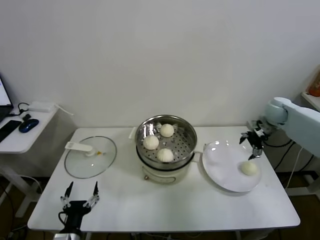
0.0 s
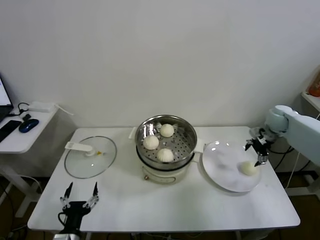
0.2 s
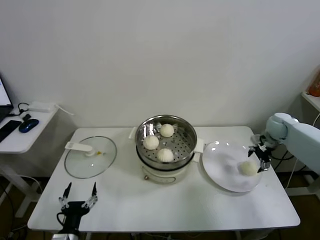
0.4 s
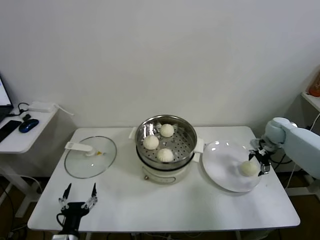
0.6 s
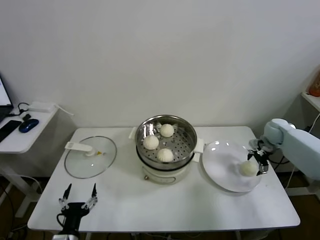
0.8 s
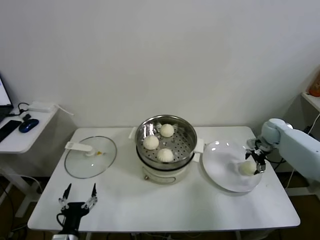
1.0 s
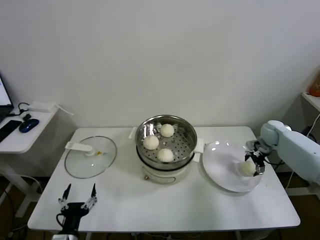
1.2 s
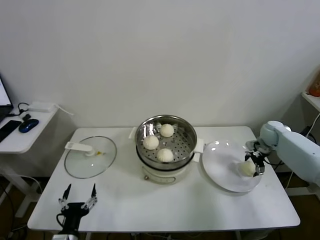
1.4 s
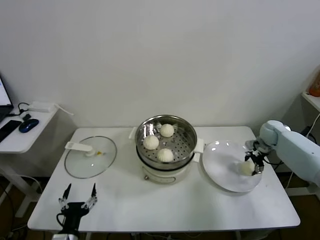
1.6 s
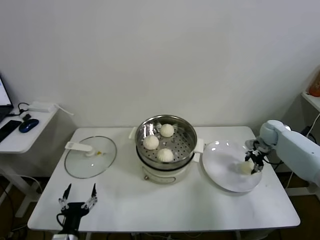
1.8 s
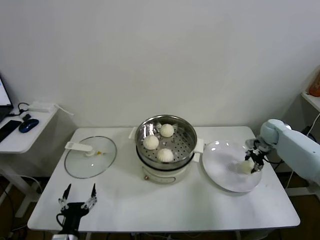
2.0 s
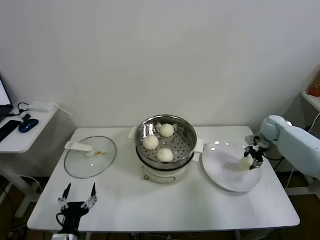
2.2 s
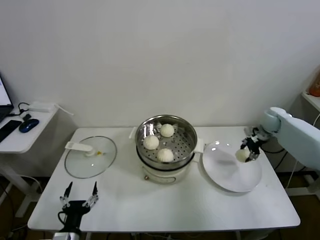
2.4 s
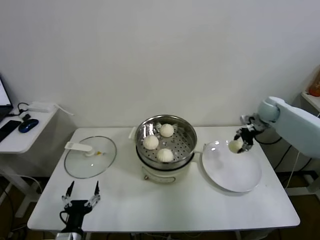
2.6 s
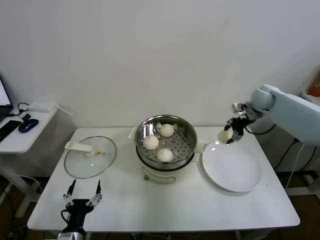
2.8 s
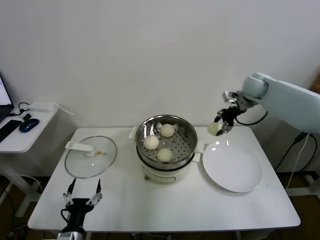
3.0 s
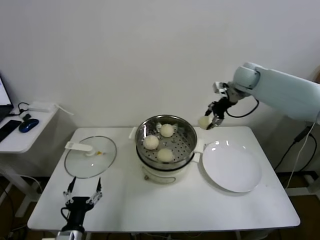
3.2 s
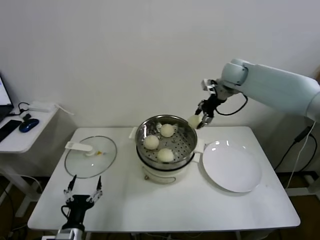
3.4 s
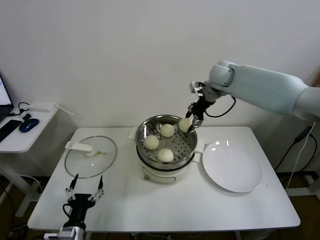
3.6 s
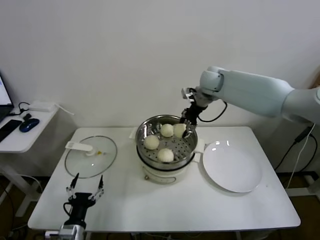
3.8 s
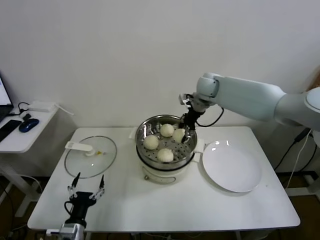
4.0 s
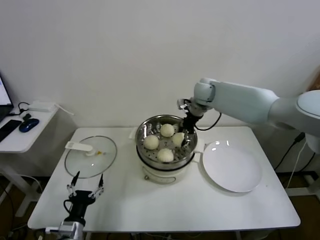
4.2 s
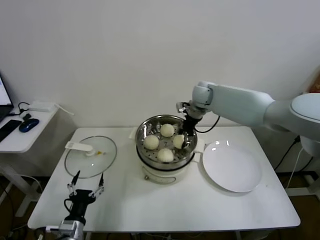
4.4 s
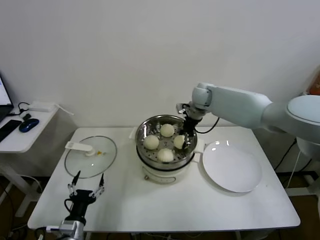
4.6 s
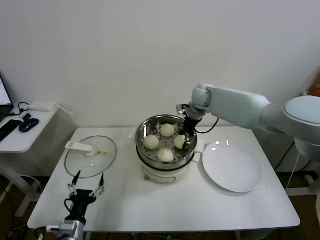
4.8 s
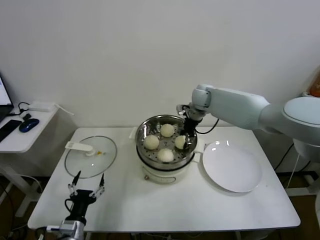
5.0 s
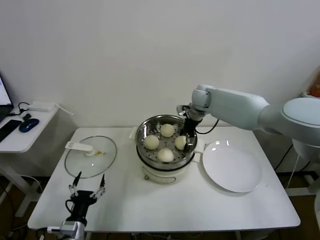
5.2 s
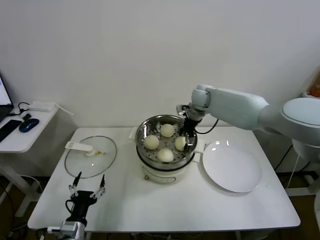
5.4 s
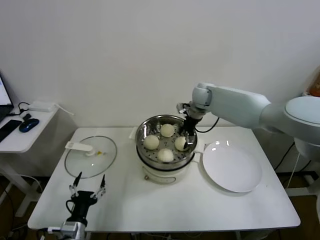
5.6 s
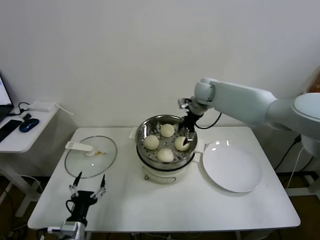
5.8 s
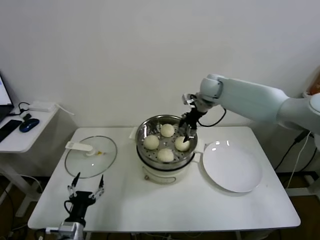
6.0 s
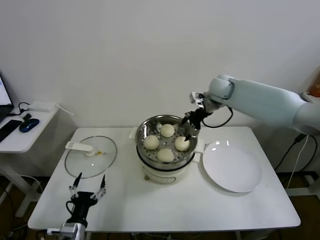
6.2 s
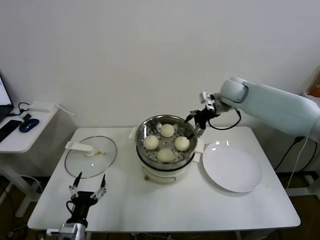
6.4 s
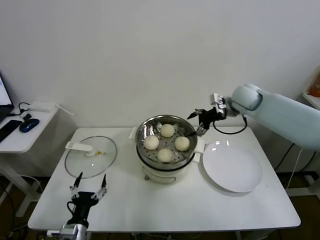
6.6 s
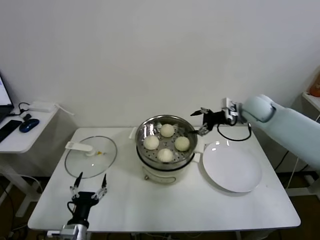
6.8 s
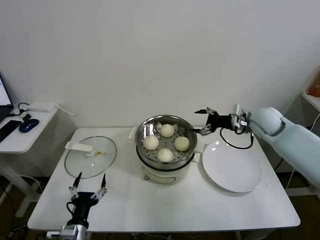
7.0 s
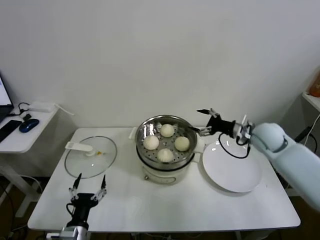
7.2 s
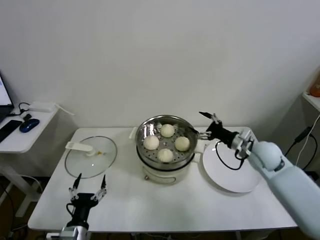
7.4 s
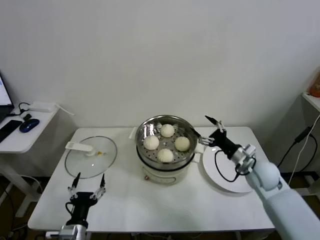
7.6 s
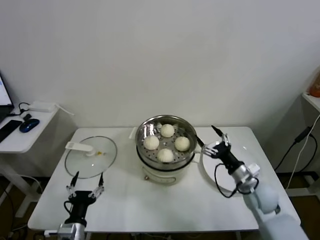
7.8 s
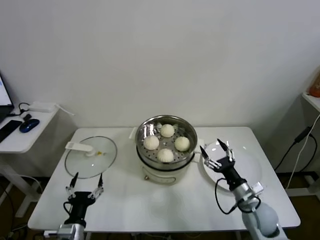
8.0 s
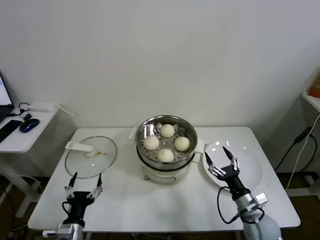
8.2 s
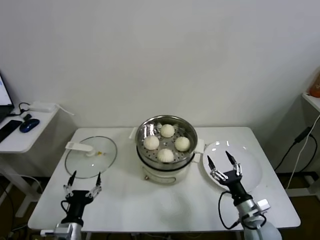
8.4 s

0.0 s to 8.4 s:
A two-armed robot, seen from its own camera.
Task of the whole recording: take steamed baozi put them in steamer.
Step, 0.0 to 1.8 s: Grasp the baozi in the plate with right gripper.
Step, 2.0 to 5.6 s: Place the baozi on the steamer with right gripper.
0.0 to 1.4 s: The right gripper shifts roughly 10 cm downward.
1.4 to 2.8 s: The right gripper shifts about 15 cm upward and to the left, and closes.
2.8 to 4.2 s: The right gripper is displaced to the left by approximately 20 cm.
4.2 to 5.6 s: The right gripper opens its fingers.
5.6 to 7.0 s: The right gripper heads to the right and backward, covering roughly 20 cm.
7.0 to 8.4 s: The right gripper moves backward and downward, about 35 cm.

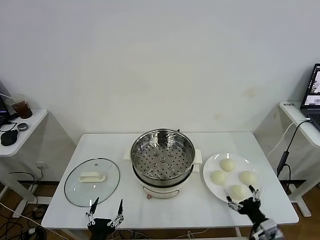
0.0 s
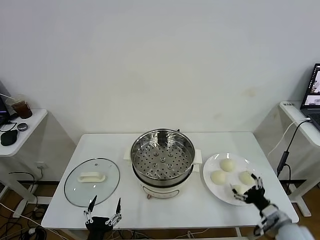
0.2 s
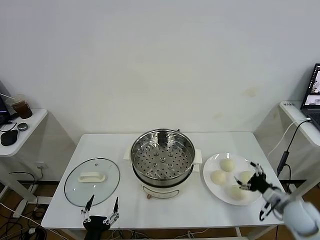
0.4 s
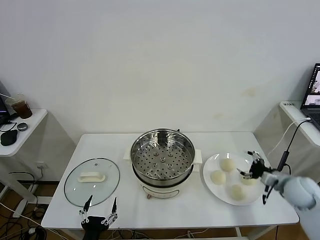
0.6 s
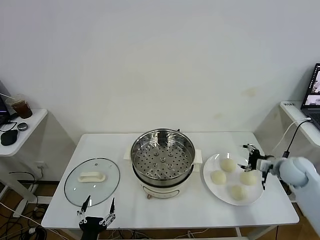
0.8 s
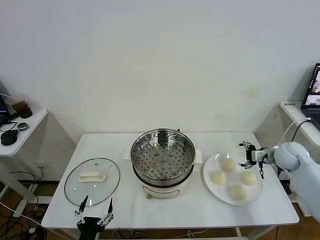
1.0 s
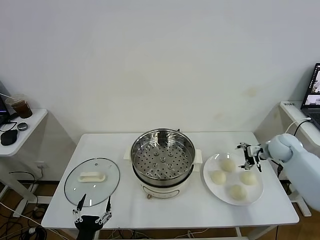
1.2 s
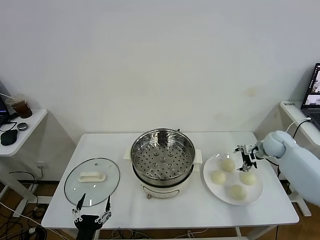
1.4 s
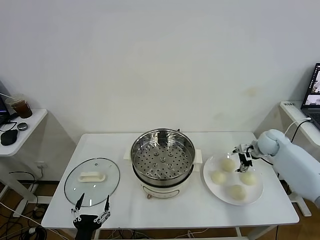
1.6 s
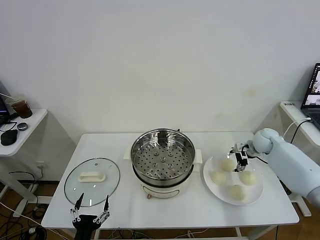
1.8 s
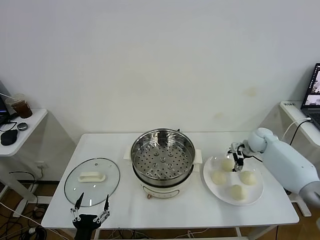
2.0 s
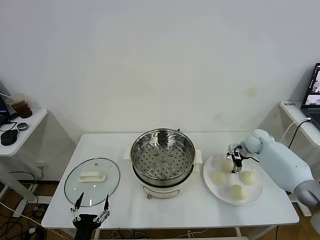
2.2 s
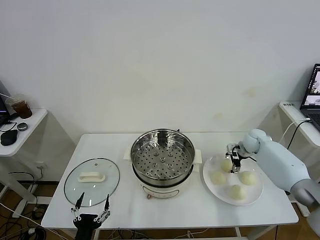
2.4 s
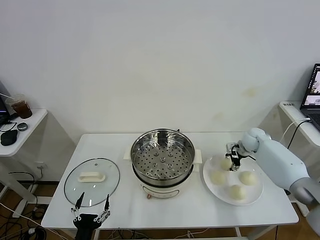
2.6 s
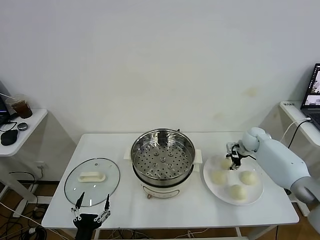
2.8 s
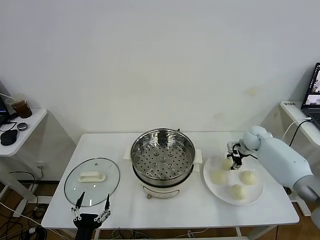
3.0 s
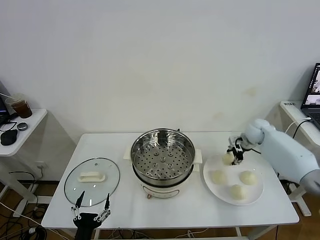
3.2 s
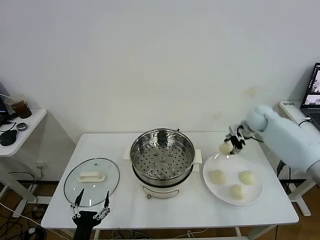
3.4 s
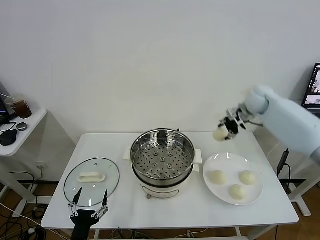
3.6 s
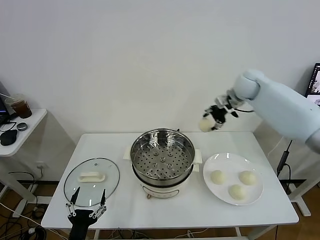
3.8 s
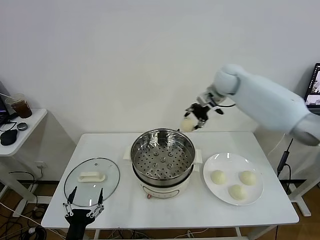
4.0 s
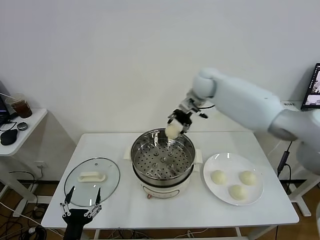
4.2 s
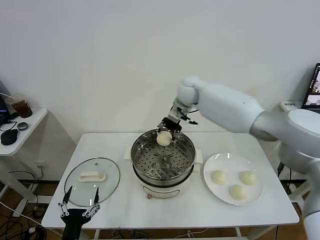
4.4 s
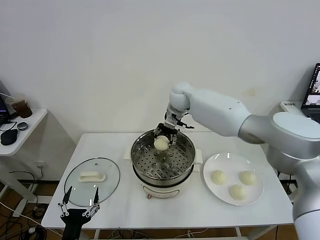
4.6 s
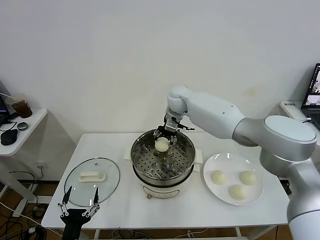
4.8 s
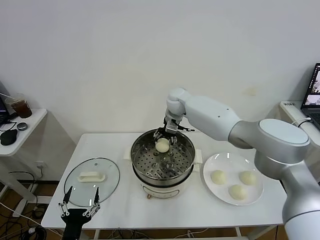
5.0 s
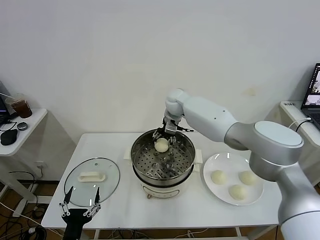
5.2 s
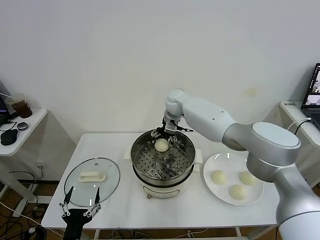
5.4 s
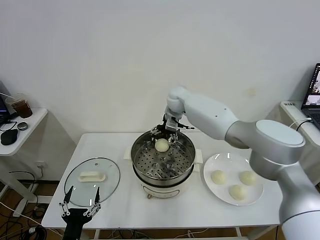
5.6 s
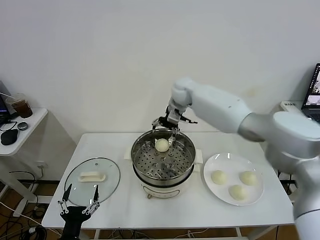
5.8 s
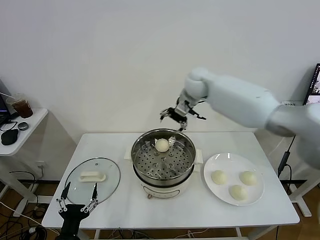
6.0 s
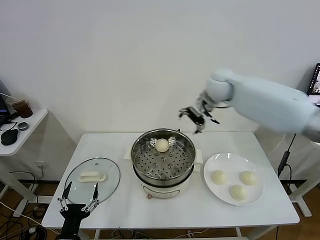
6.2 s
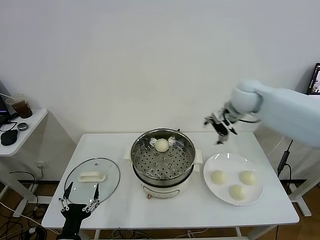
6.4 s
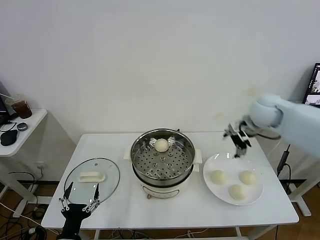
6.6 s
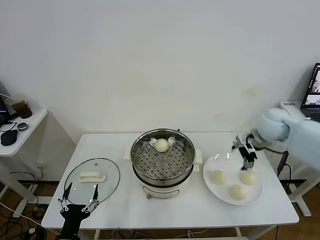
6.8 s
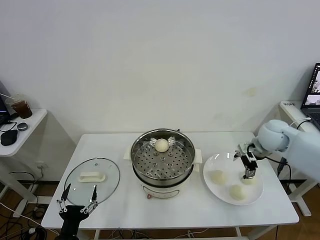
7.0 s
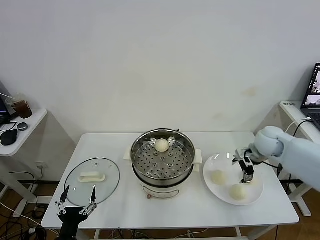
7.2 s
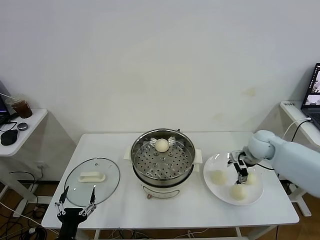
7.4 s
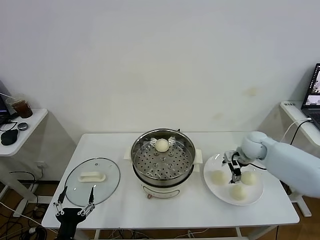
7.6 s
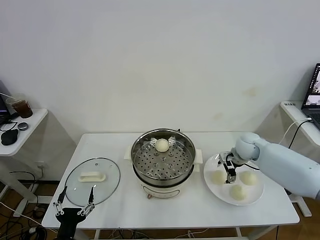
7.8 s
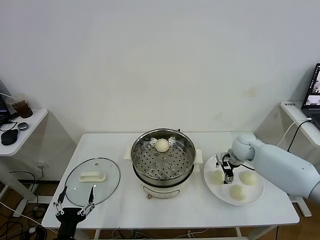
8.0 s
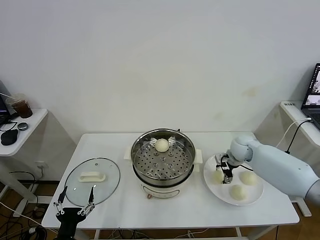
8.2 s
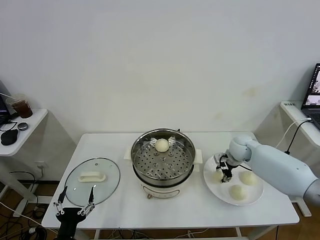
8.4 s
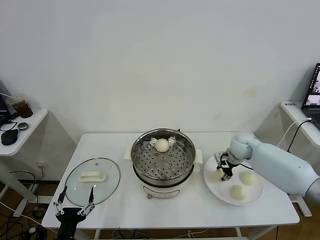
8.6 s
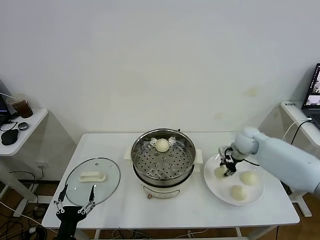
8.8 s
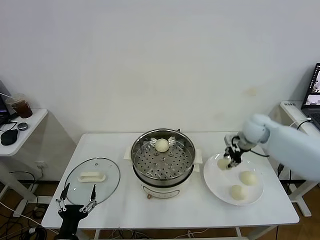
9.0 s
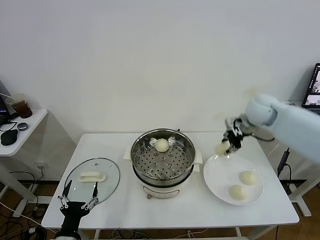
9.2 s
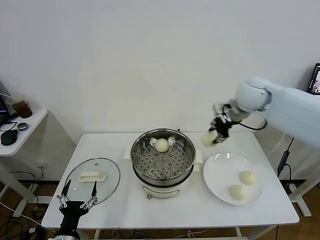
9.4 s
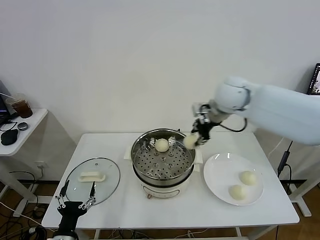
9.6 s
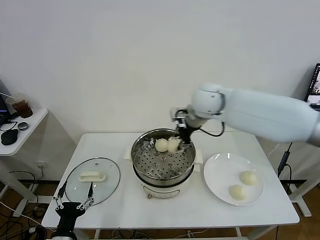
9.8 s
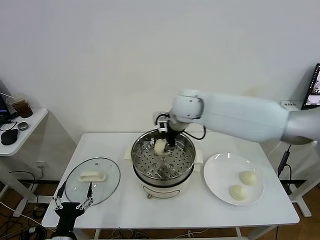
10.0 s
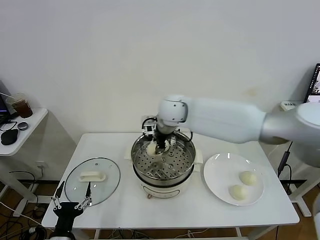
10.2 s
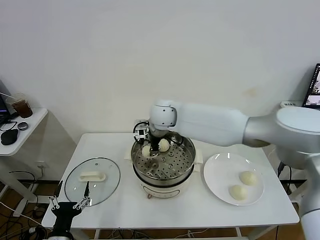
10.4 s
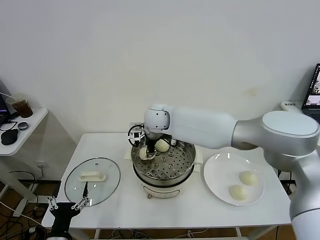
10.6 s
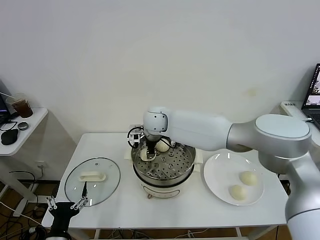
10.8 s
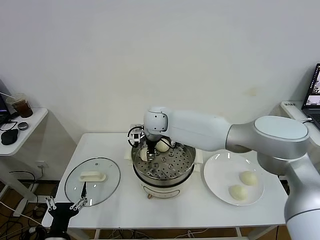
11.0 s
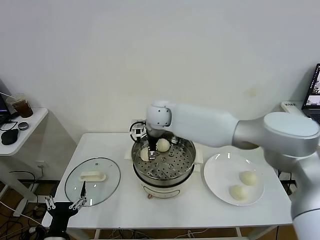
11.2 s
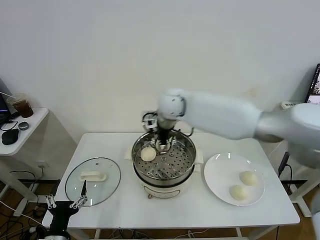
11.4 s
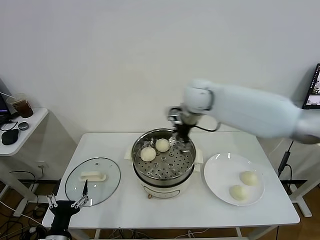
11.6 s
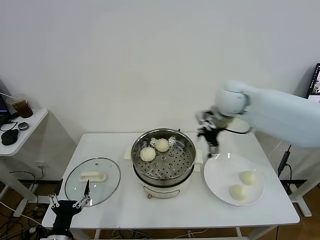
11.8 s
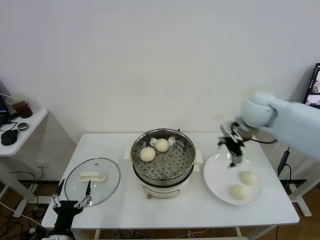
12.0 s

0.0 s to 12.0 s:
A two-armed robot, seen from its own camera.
Task of the whole recording: take steamed baozi put them in steamer.
Step, 0.0 to 2.6 s: Grasp the baozi in the plate with right gripper.
Step, 2.8 to 5.8 s: Place the baozi on the steamer with right gripper.
Step, 6.0 to 8.4 s: Grasp the baozi in the plate with right gripper.
Step, 8.6 to 11.4 s: Place the baozi on the steamer with right gripper.
1.6 to 3.0 s: The right gripper moves approximately 5 cm, and closes up.
3.0 to 4.4 s: The right gripper goes approximately 35 cm to the left and upward.
4.4 to 6.0 s: The right gripper ends up some 5 cm from where it was, and opens.
6.0 to 7.6 s: The right gripper travels to the right, downward and backward by roughly 30 cm.
7.6 to 9.0 s: The right gripper goes some 5 cm upward, and closes up.
9.0 to 10.4 s: The right gripper heads to the left, covering roughly 35 cm.
10.4 to 12.0 s: The right gripper shifts roughly 25 cm to the right, and opens its fingers.

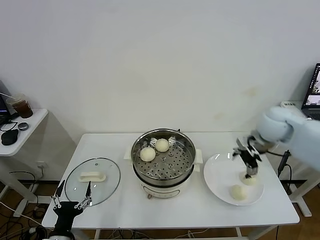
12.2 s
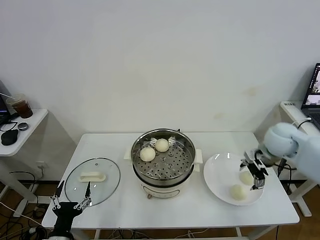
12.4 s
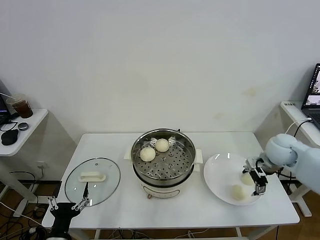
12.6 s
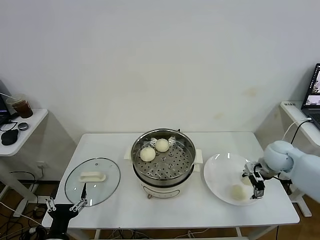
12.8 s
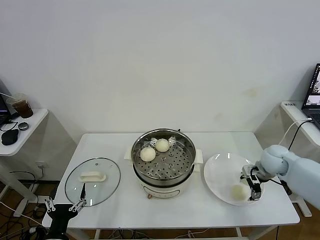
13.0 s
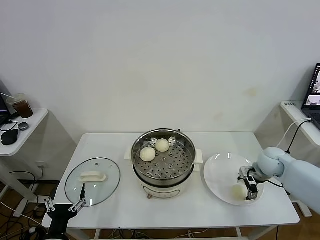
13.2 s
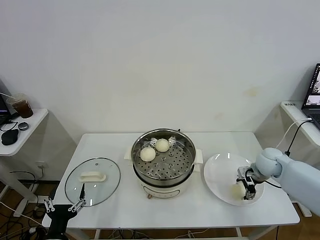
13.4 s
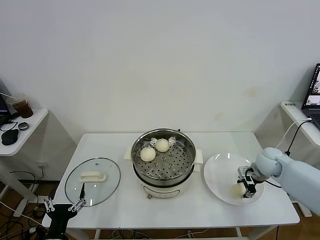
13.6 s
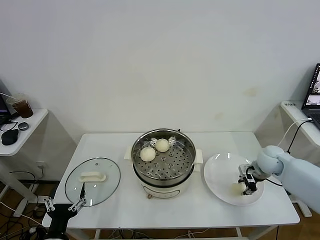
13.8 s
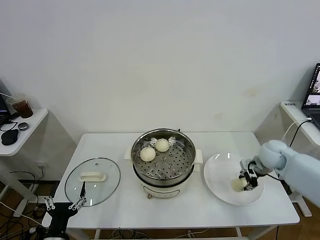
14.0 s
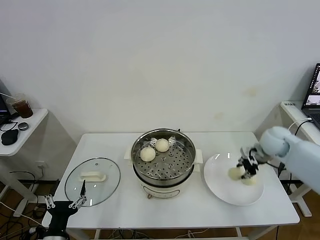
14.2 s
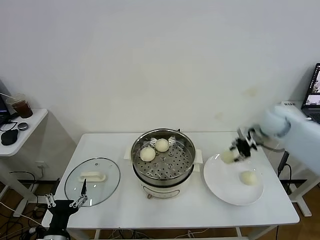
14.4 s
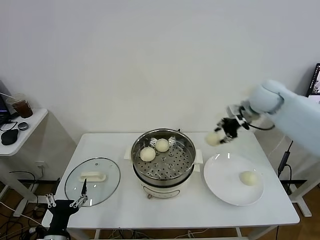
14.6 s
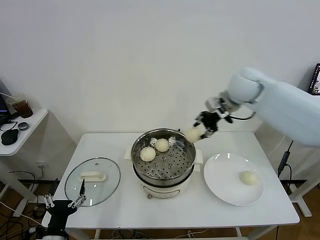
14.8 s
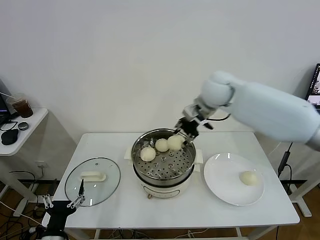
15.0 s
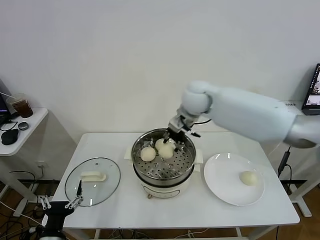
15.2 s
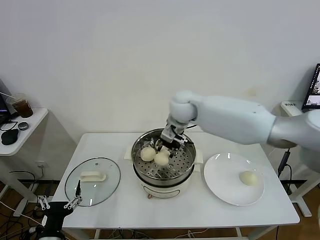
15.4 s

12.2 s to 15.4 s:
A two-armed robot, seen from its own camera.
Task of the whole recording: take steamed baozi put them in steamer.
Step, 12.2 to 13.6 s: Grasp the baozi in the plate with right gripper.
12.2 to 13.8 s: The right gripper shifts approximately 15 cm downward, and closes up.
13.8 to 15.4 s: The right gripper moves to the left and upward, roughly 35 cm.
